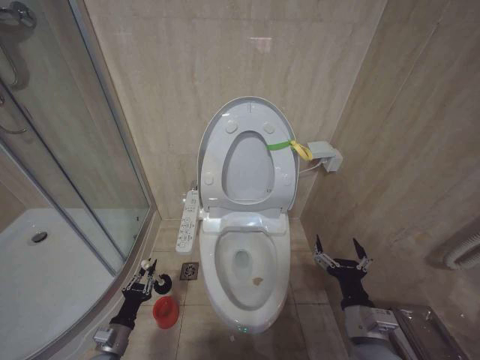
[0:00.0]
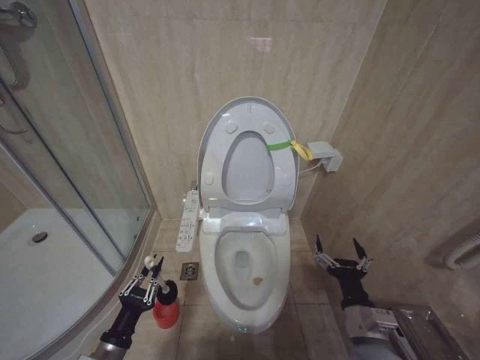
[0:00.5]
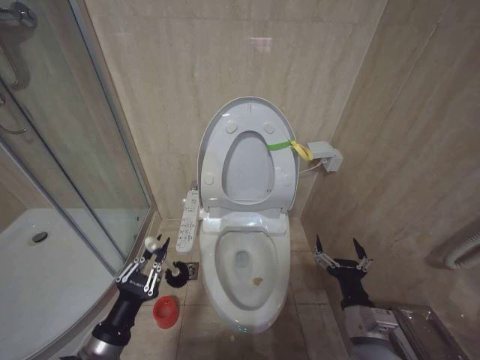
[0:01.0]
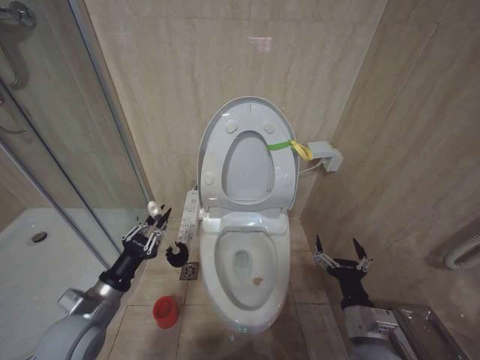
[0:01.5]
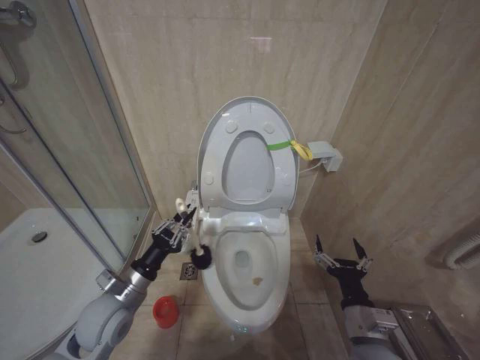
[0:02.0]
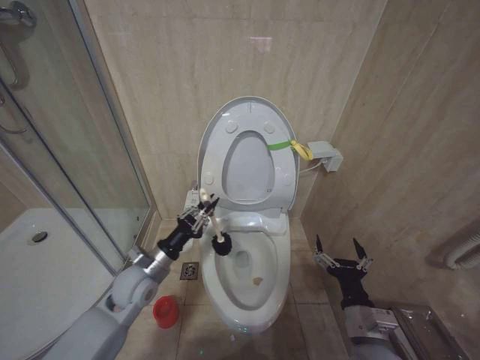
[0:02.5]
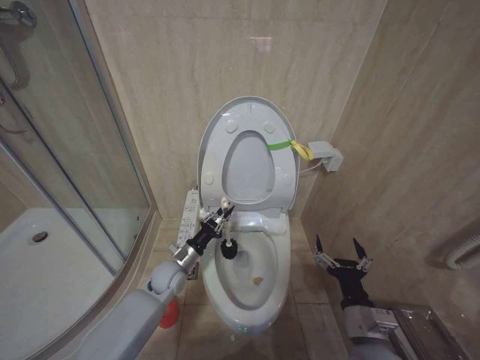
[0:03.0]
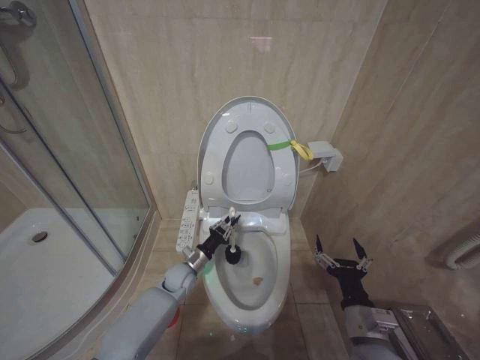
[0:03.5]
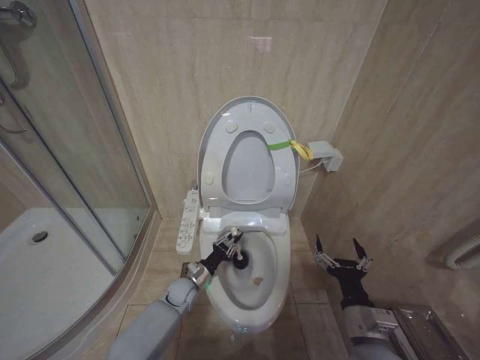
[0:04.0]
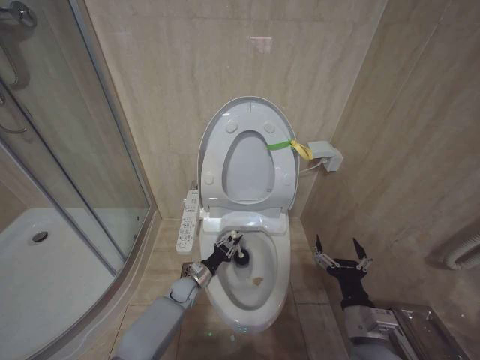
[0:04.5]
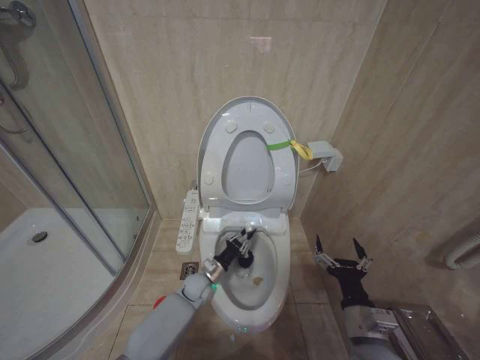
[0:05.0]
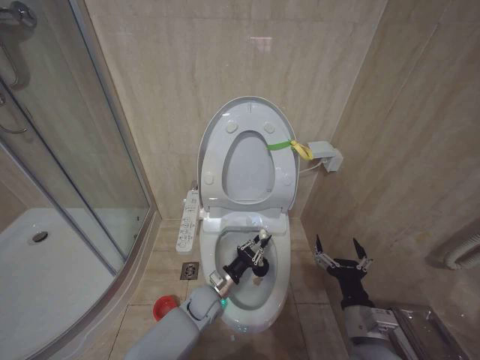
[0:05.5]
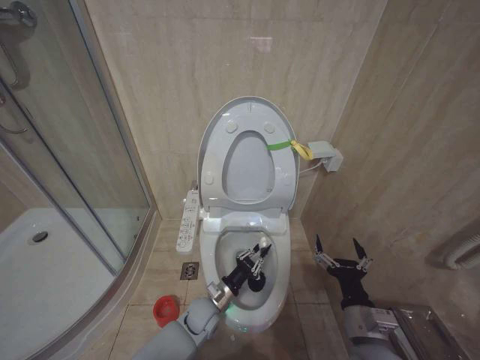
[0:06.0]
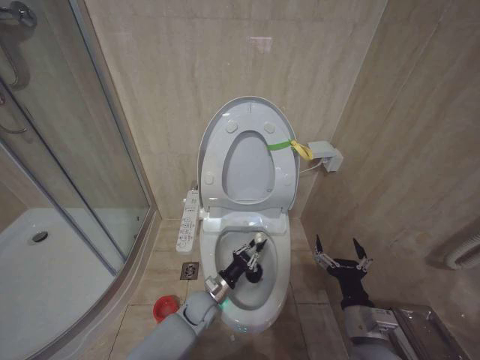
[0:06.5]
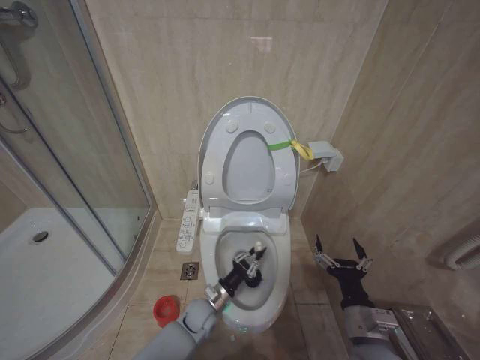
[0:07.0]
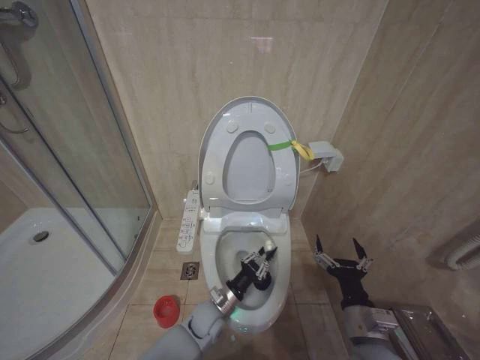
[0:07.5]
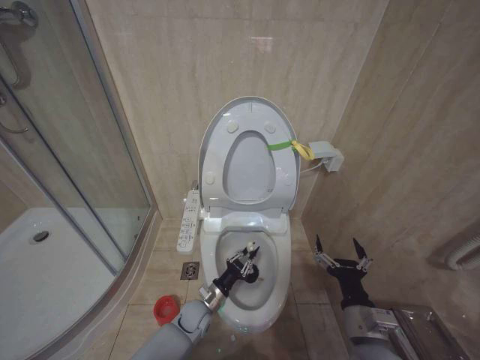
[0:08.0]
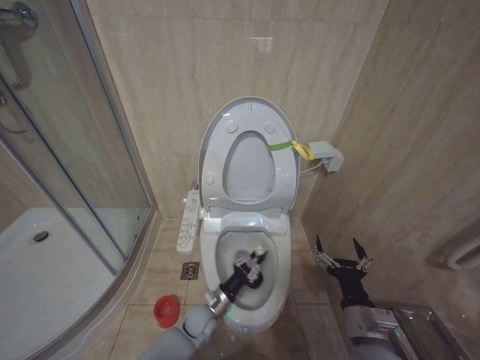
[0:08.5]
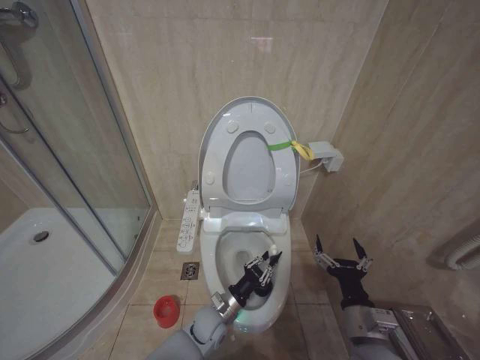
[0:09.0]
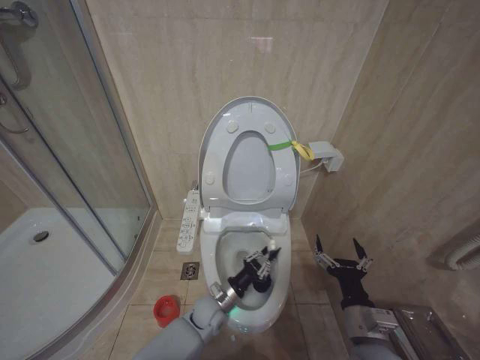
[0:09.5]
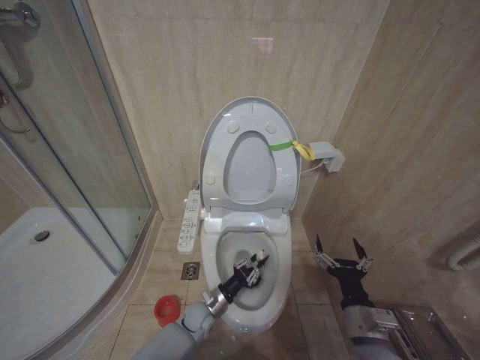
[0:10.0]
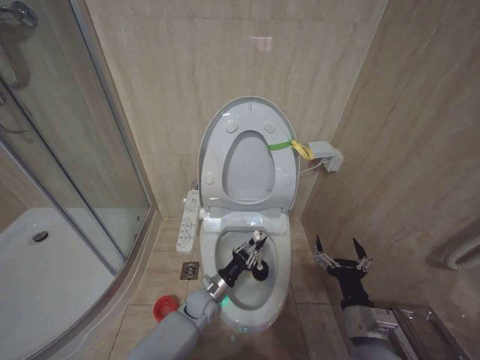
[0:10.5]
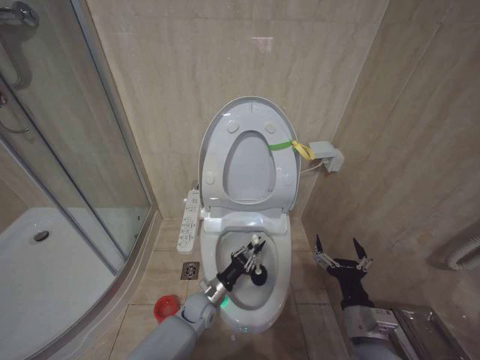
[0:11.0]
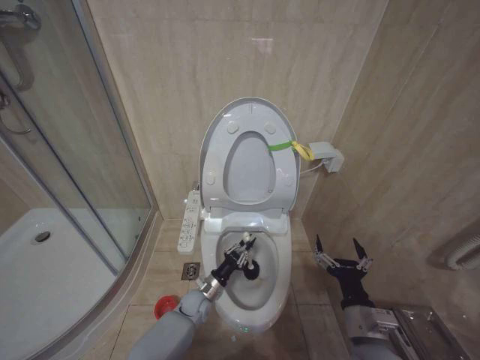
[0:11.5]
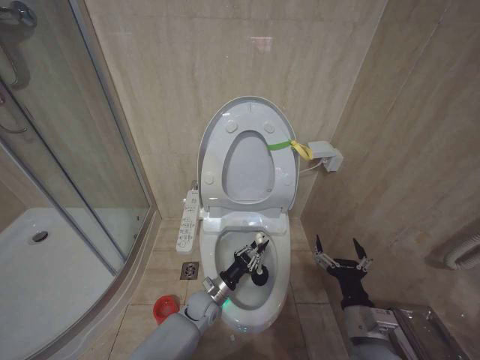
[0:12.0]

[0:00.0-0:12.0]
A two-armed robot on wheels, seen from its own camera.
Task of the whole recording: Open the toilet lid, clean the toilet bowl with a toilet brush, close the toilet lid, and flush.
0.0 to 2.0 s: The left gripper heads upward, covering approximately 20 cm.
2.0 to 4.0 s: The left gripper shifts some 25 cm downward, forward and to the right.
4.0 to 6.0 s: The left gripper shifts approximately 10 cm to the right and backward.
6.0 to 8.0 s: The left gripper moves roughly 5 cm.
10.0 to 12.0 s: The grippers stay close to where they were, moving slightly.

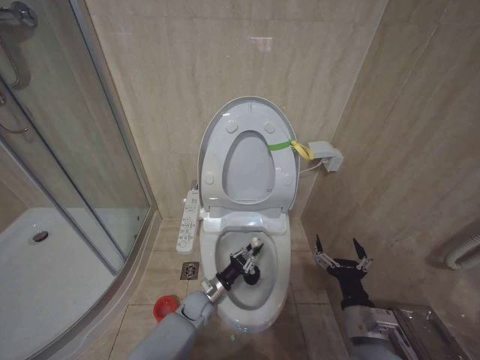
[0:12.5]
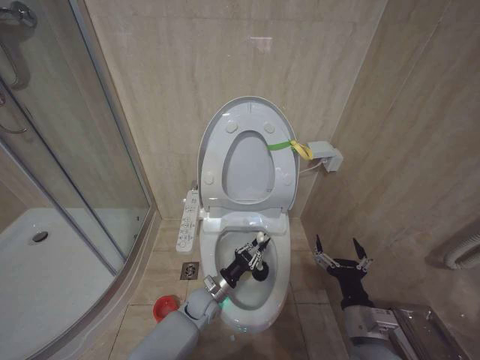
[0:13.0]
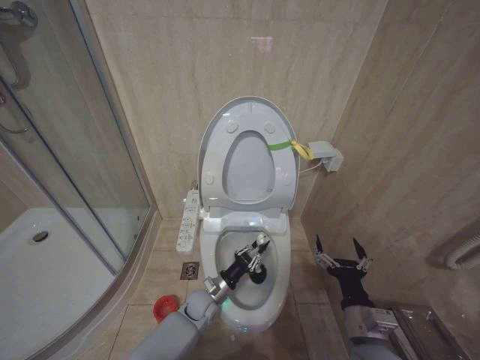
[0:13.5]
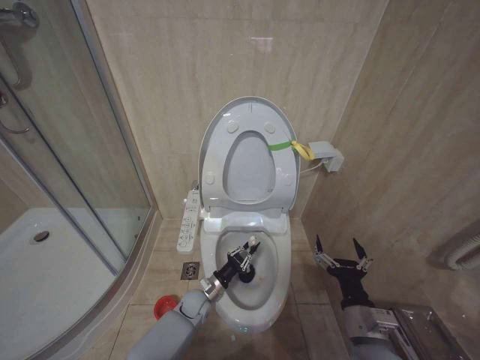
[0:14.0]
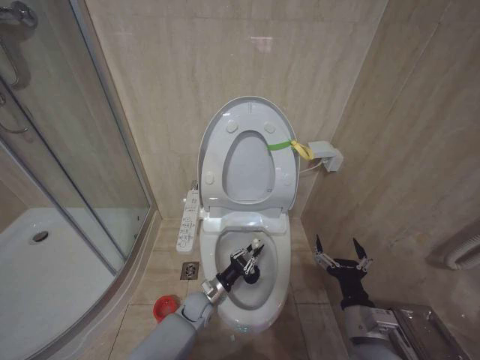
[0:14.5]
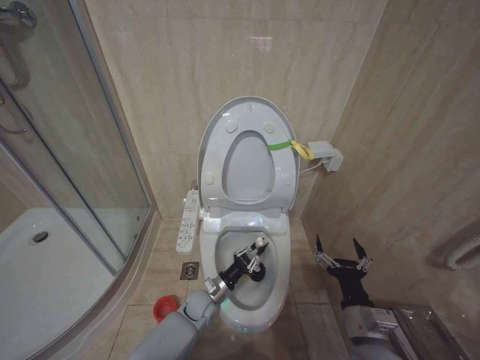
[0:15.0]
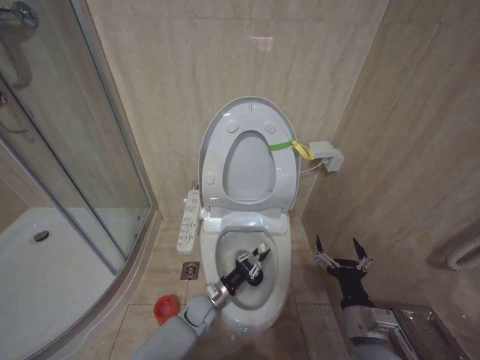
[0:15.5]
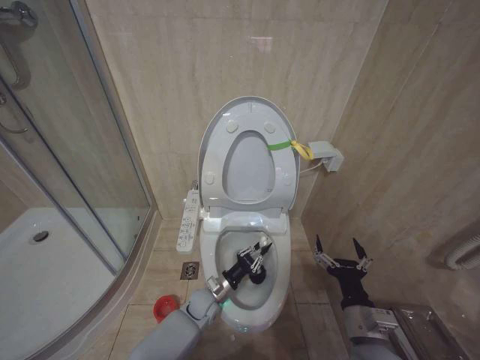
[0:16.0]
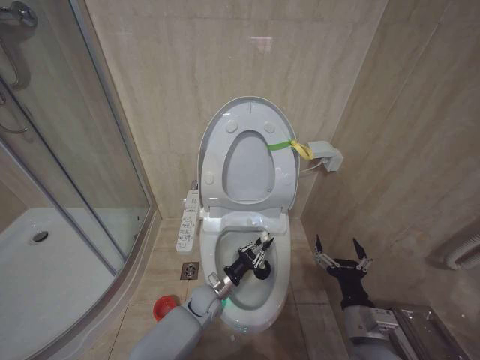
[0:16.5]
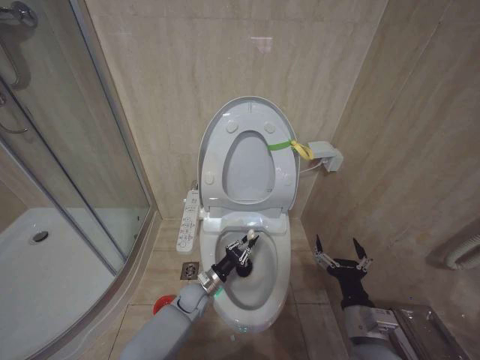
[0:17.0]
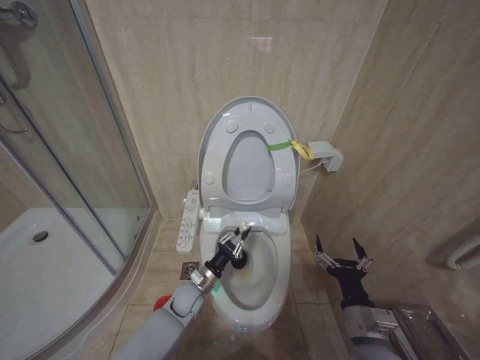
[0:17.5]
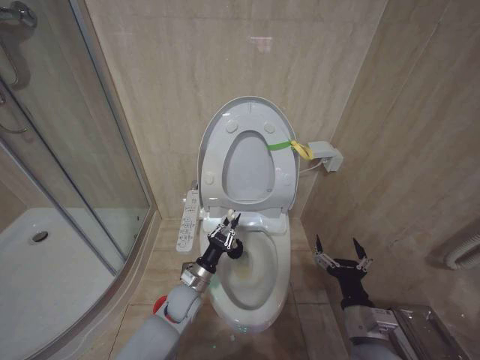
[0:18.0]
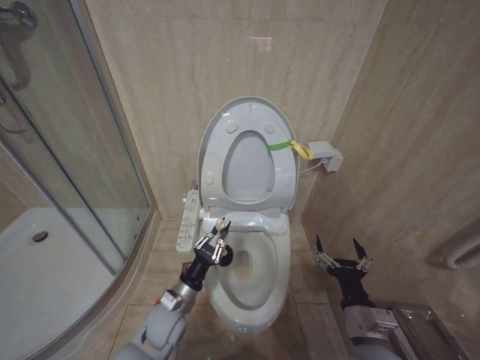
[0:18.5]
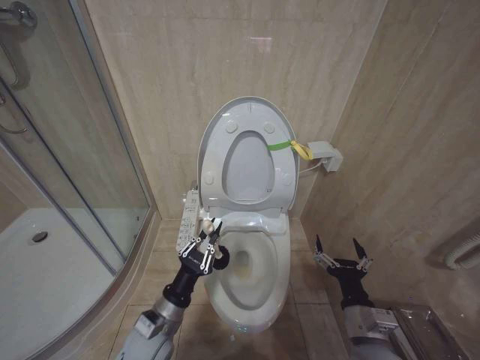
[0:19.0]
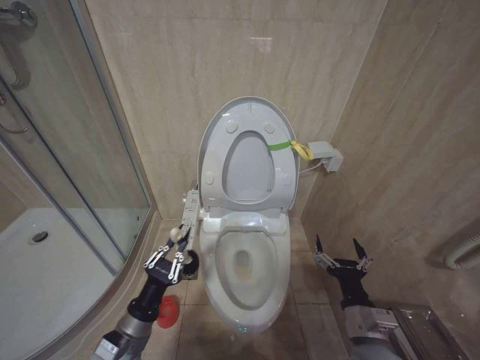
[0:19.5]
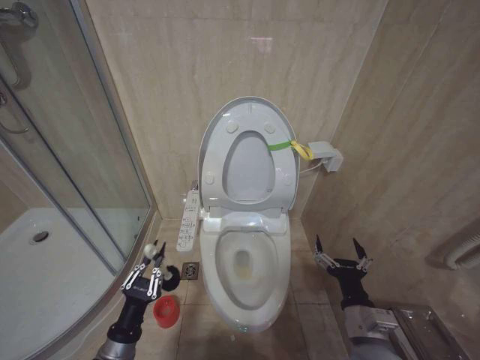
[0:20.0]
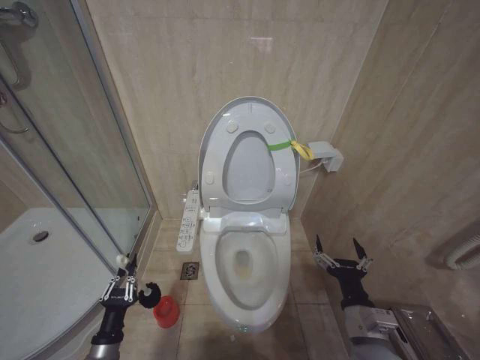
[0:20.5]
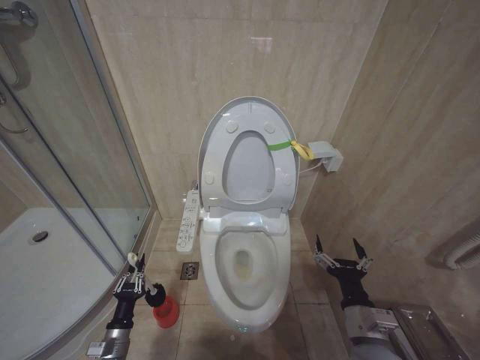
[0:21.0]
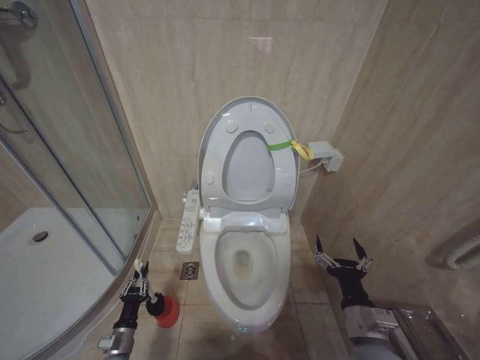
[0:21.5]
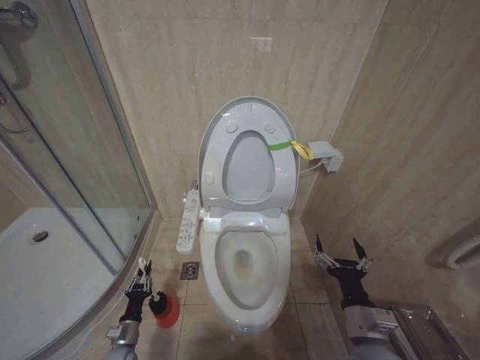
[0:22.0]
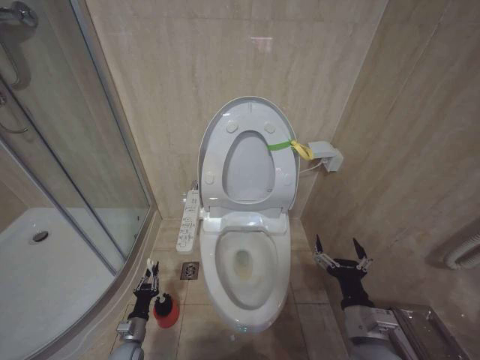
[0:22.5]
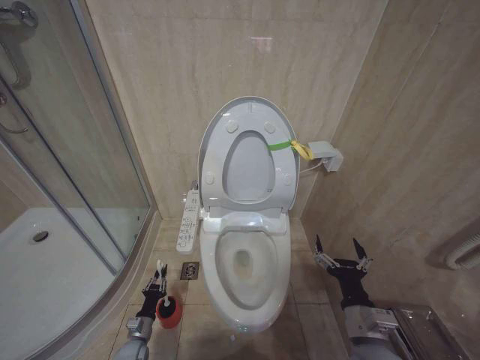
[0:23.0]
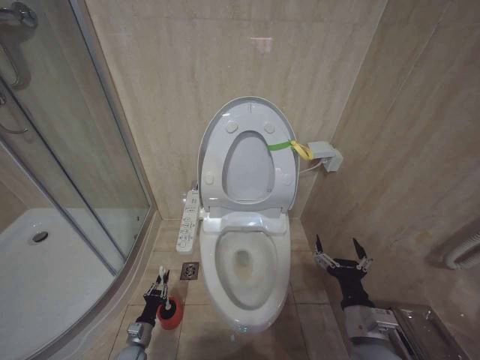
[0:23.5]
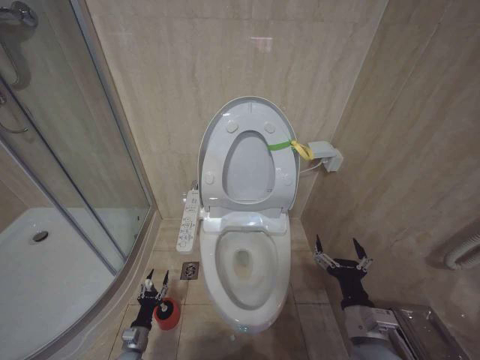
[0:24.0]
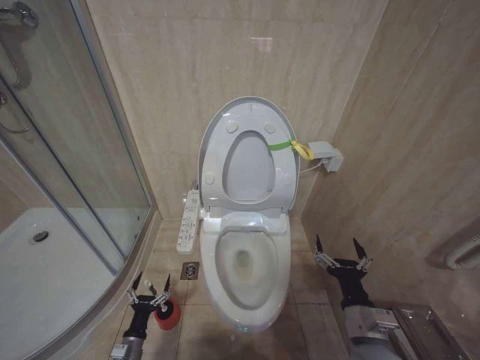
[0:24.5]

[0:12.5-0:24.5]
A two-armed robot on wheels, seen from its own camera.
Task of the whole recording: Open the toilet lid, clean the toilet bowl with a toilet brush, close the toilet lid, and flush.
14.5 to 16.5 s: The grippers stay close to where they were, moving slightly.
16.5 to 18.5 s: The left gripper goes approximately 15 cm upward, to the left and backward.
18.5 to 20.5 s: The left gripper is displaced to the left and backward by about 20 cm.
20.5 to 22.5 s: The left gripper heads downward and forward, covering some 20 cm.
22.5 to 24.5 s: The left gripper moves backward, some 5 cm, and opens.

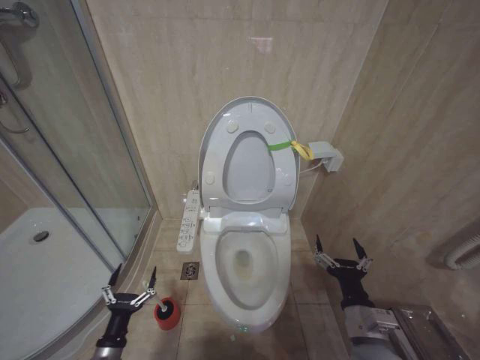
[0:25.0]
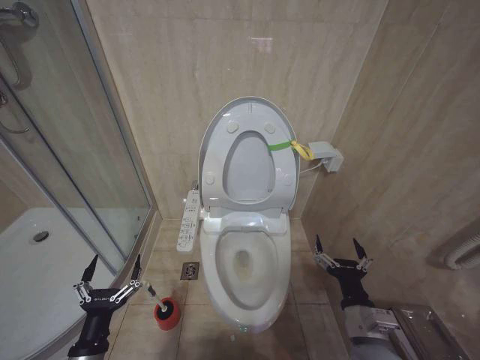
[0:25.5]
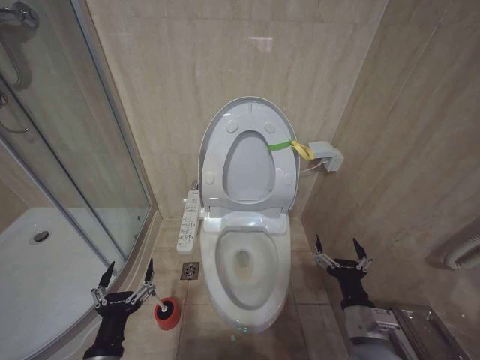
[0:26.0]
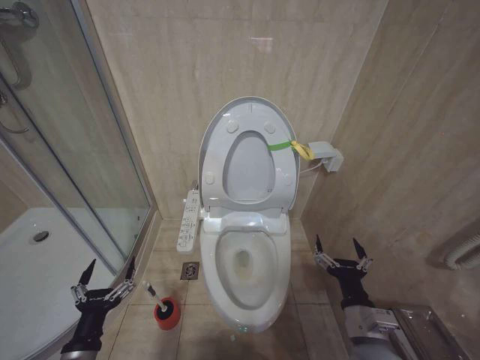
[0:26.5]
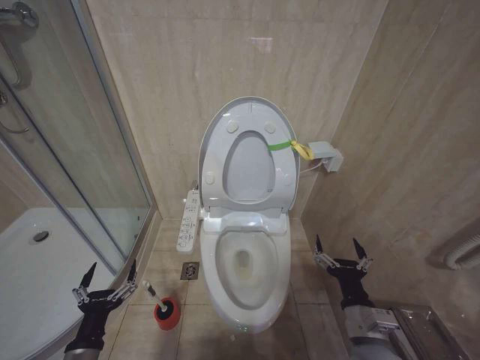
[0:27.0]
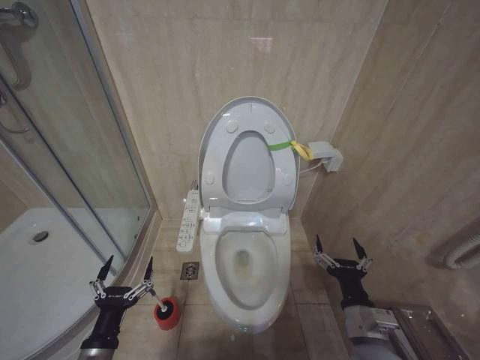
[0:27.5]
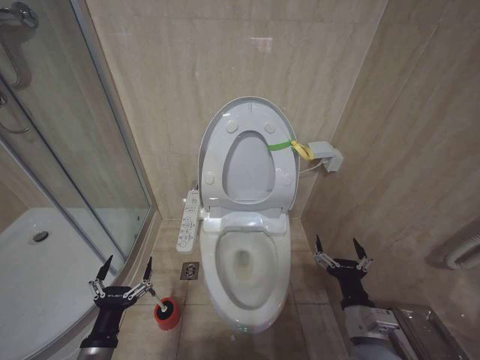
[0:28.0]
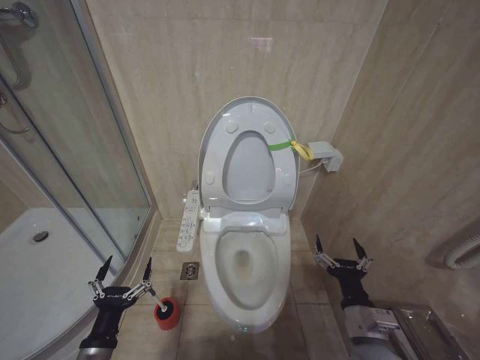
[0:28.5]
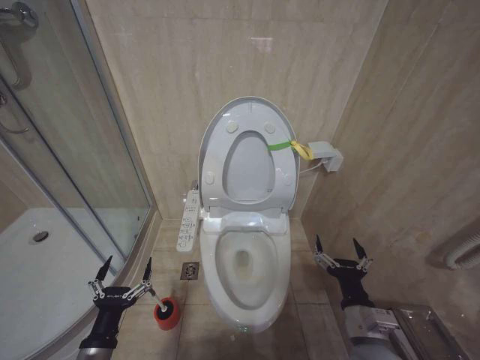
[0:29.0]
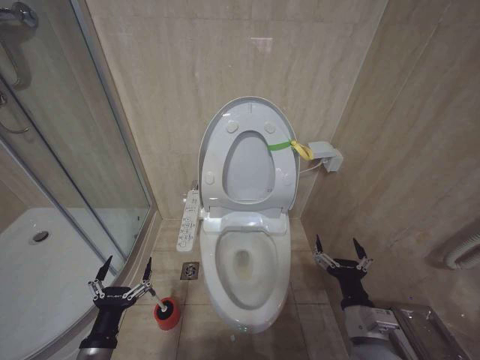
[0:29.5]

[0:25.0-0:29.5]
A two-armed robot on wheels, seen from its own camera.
Task of the whole recording: Open the toilet lid, clean the toilet bowl with a toilet brush, close the toilet lid, and flush.
25.0 to 27.0 s: The left gripper moves upward, approximately 10 cm.
27.0 to 29.5 s: The grippers move only a little.
